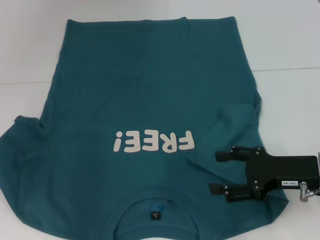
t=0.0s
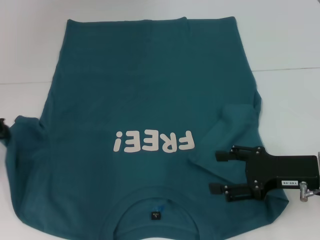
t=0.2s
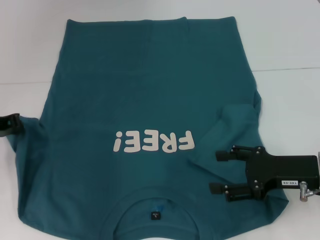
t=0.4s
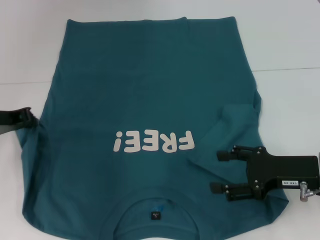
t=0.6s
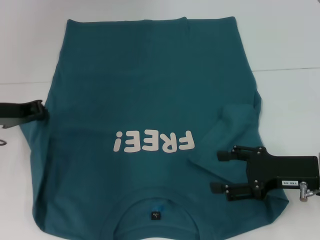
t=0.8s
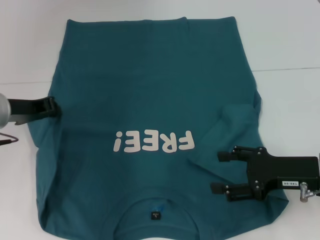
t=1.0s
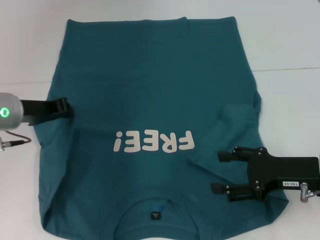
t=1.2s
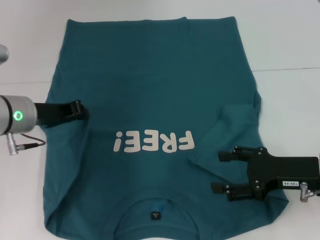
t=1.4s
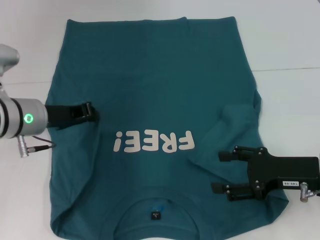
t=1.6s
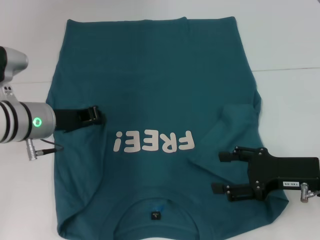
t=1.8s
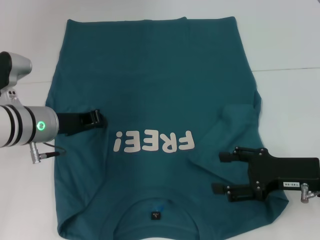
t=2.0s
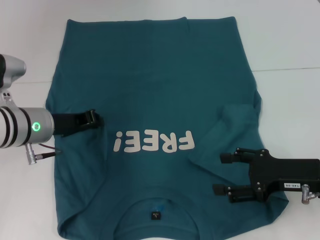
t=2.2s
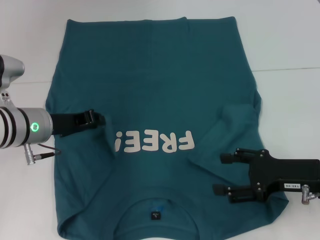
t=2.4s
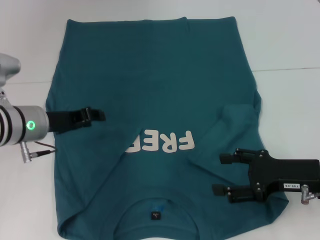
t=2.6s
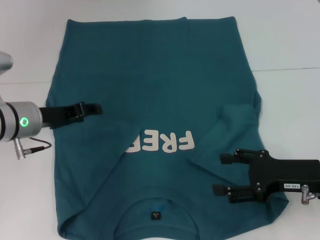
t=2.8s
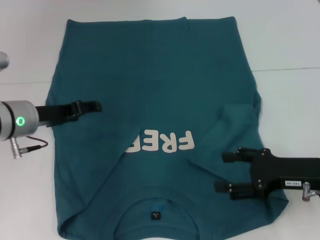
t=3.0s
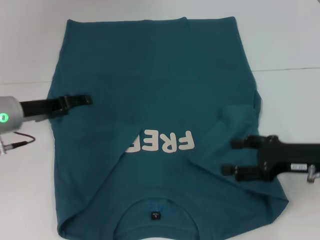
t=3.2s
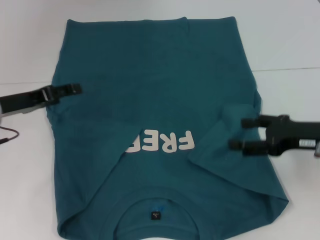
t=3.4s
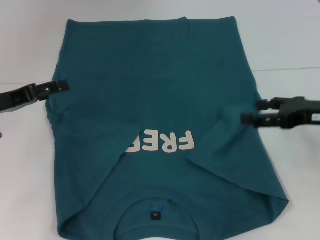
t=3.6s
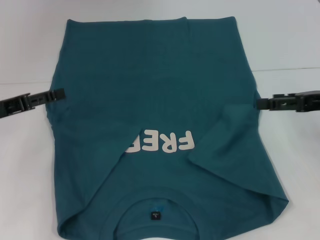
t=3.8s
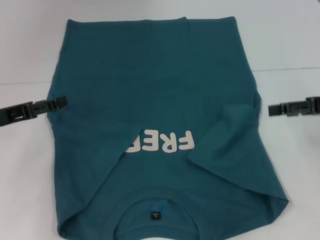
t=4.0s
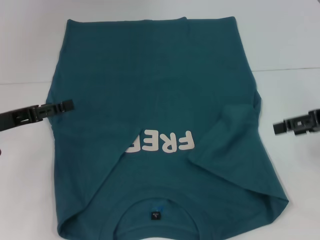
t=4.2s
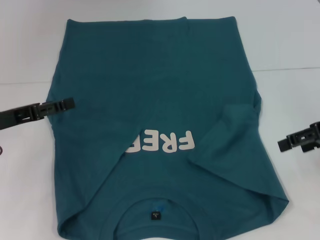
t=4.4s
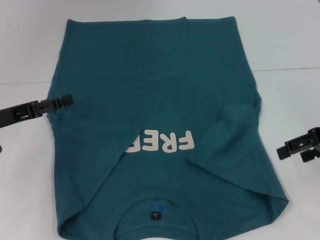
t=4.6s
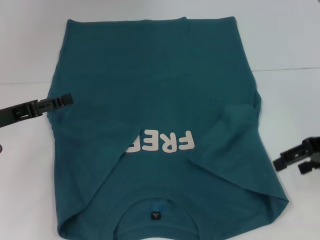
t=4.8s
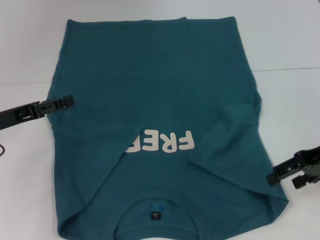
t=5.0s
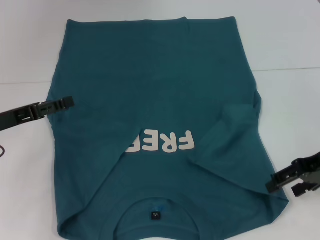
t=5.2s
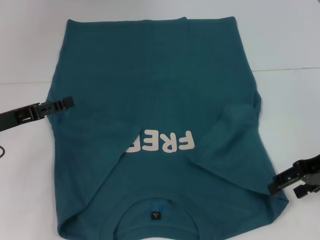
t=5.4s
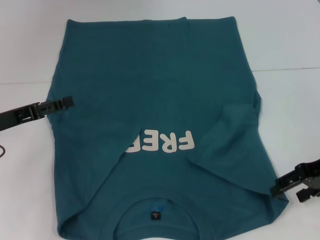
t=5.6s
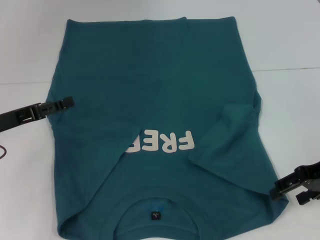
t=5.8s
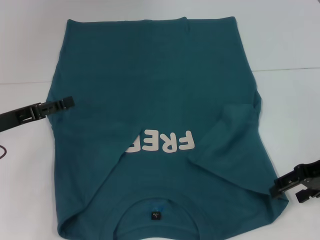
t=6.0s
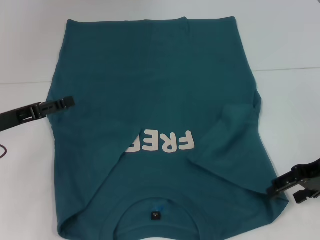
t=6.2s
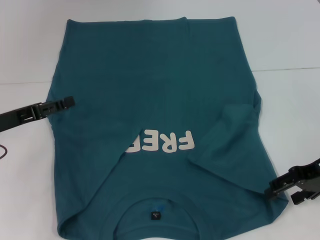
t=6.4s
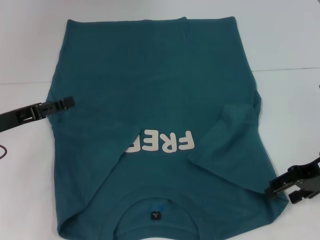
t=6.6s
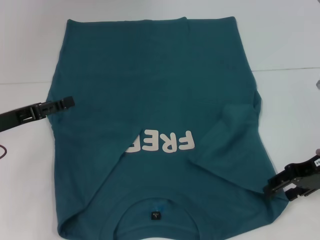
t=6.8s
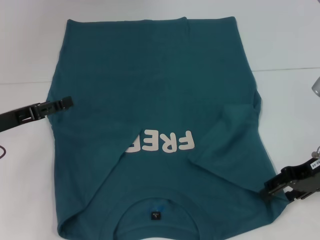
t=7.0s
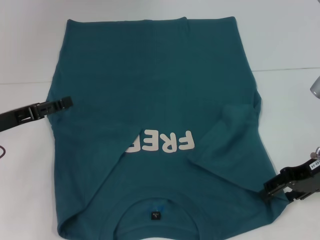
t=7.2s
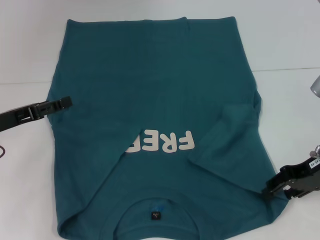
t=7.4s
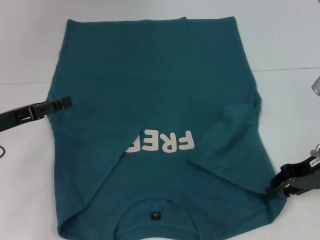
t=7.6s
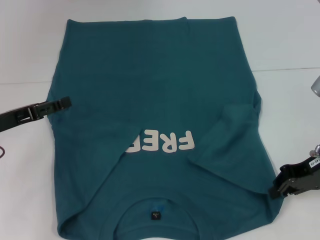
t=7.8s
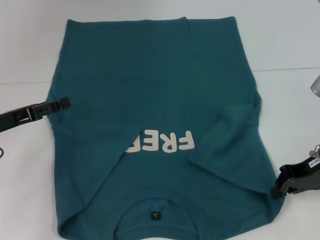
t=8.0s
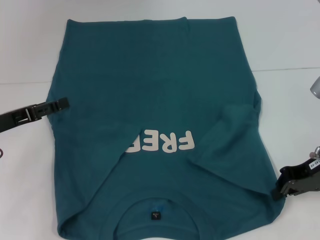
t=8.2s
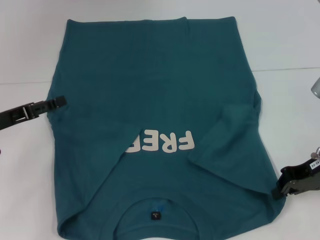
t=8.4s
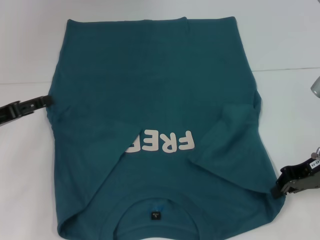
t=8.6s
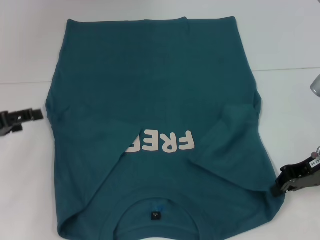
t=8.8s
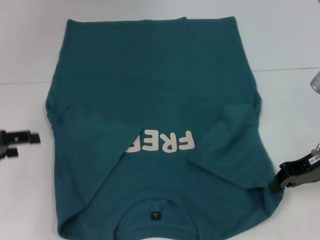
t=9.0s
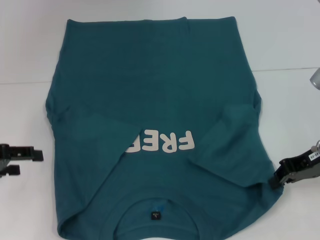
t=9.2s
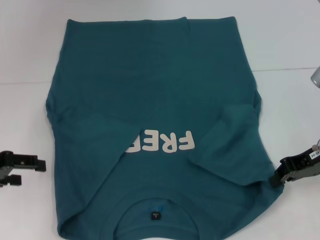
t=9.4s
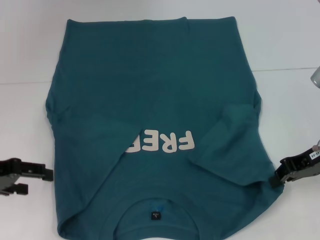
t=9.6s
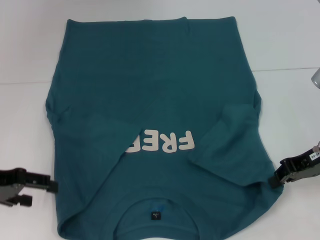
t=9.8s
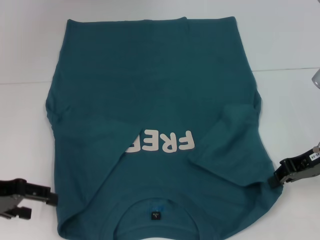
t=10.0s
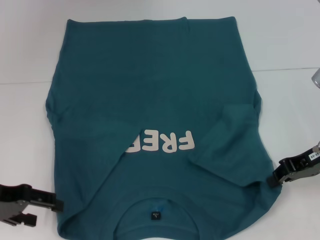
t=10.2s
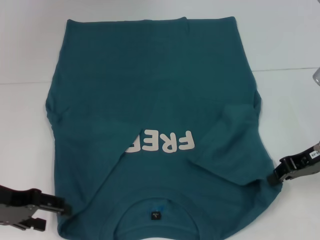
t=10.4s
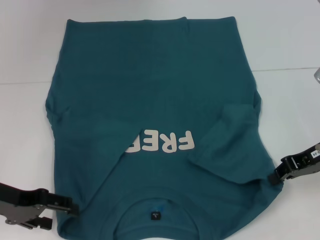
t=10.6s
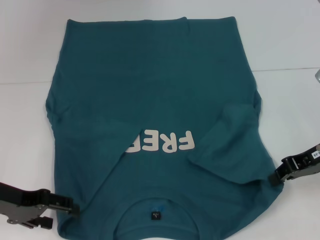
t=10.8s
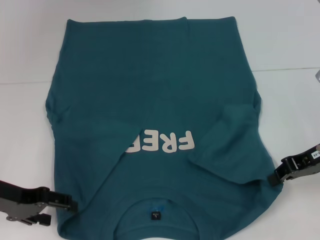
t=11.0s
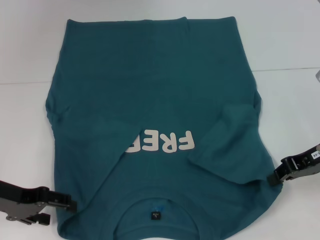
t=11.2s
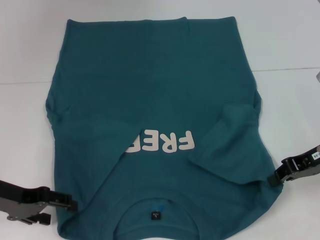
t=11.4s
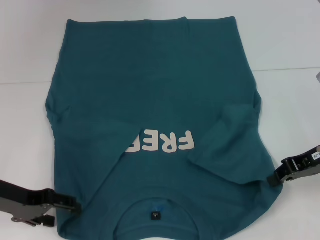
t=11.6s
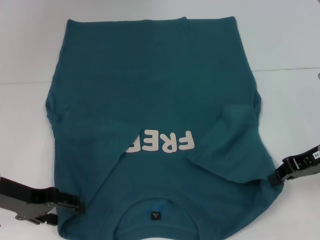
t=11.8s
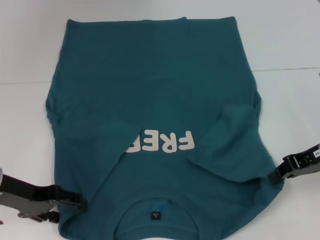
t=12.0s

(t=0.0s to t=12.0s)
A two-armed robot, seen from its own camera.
Step, t=0.0s - t=2.6s: Fold the bottom left sleeve with your left hand.
Step, t=2.8s - t=8.2s: Grab the bottom right corner with your right hand.
t=0.0s - t=1.6s: The left gripper heads to the right, covering roughly 10 cm.
t=1.6s - t=3.0s: The left gripper opens.
t=3.0s - t=4.4s: The right gripper shifts roughly 15 cm upward, to the right and forward. The left gripper goes approximately 5 cm to the left.
t=4.4s - t=6.0s: The right gripper moves approximately 5 cm.
t=6.0s - t=7.6s: The right gripper closes up.
t=7.6s - t=9.0s: The left gripper shifts by approximately 5 cm, while the right gripper closes up.
t=9.0s - t=10.4s: The left gripper changes place by about 5 cm.
t=10.4s - t=12.0s: The grippers make only small movements.

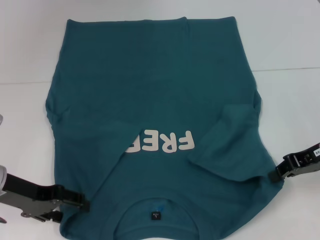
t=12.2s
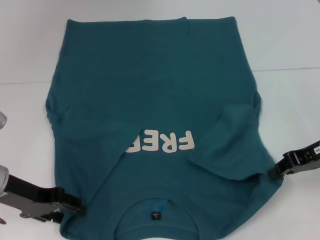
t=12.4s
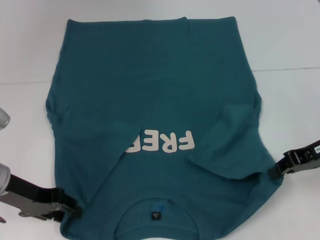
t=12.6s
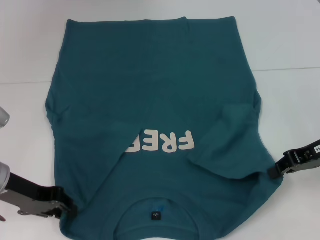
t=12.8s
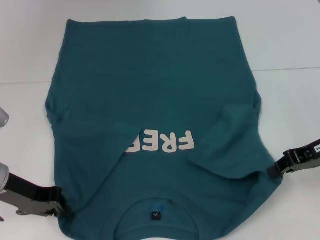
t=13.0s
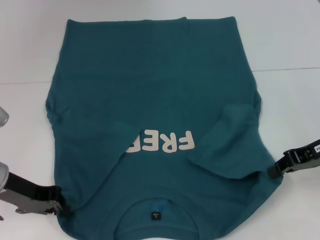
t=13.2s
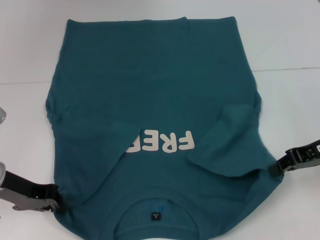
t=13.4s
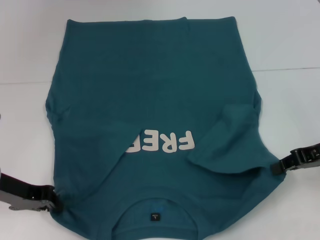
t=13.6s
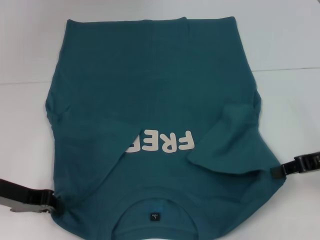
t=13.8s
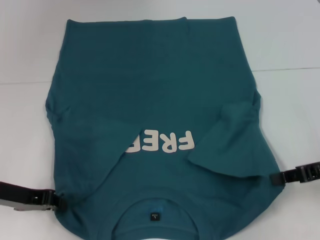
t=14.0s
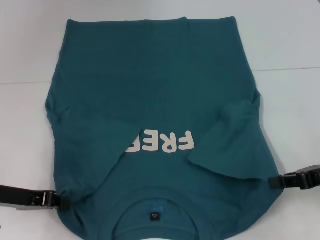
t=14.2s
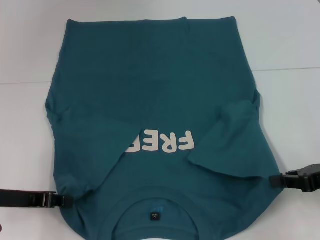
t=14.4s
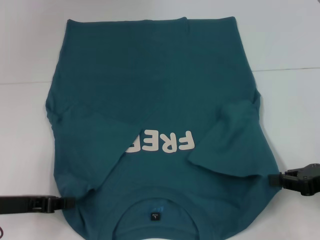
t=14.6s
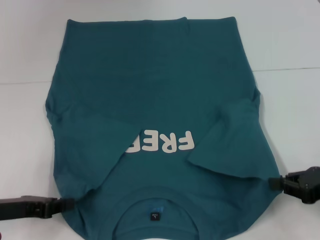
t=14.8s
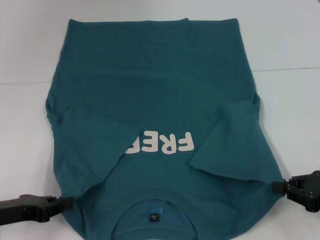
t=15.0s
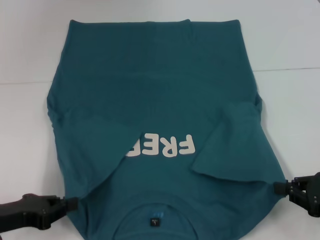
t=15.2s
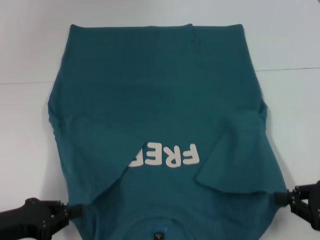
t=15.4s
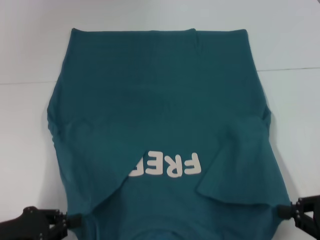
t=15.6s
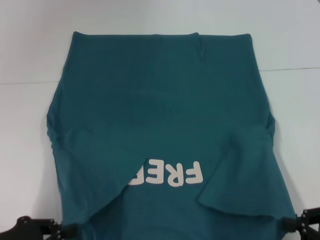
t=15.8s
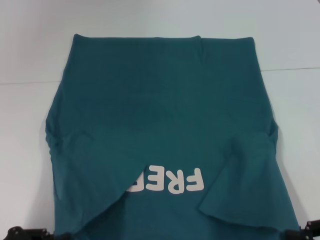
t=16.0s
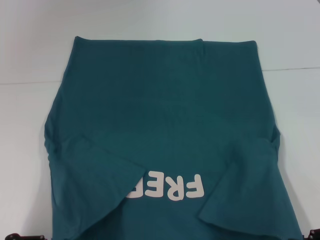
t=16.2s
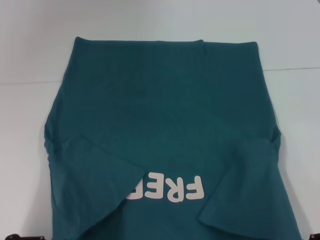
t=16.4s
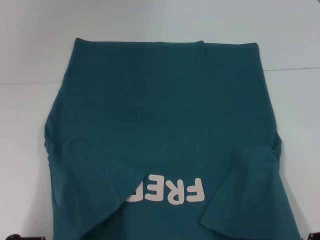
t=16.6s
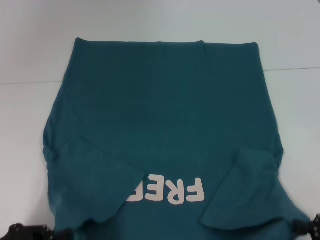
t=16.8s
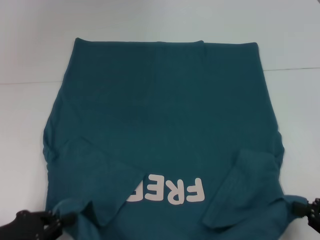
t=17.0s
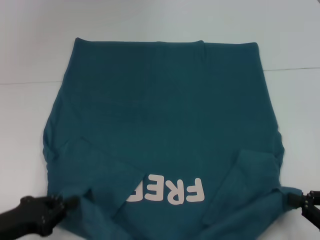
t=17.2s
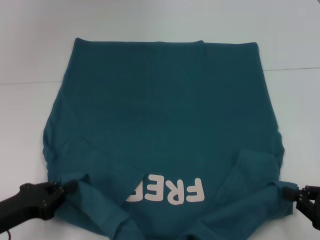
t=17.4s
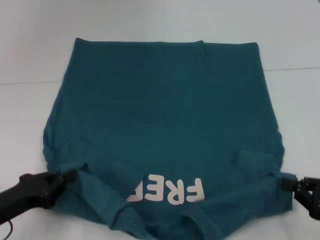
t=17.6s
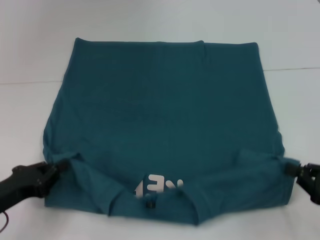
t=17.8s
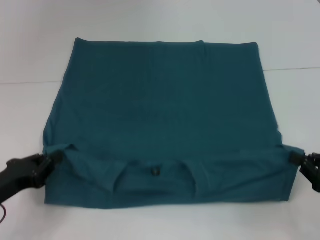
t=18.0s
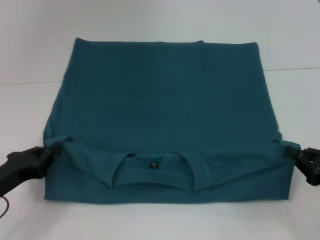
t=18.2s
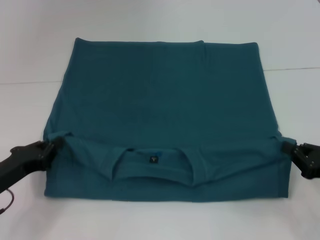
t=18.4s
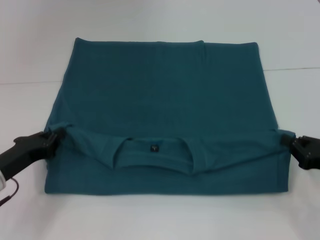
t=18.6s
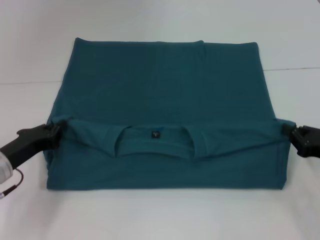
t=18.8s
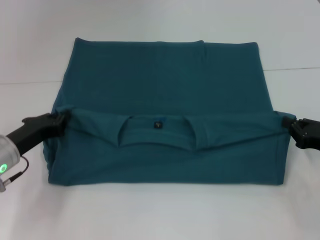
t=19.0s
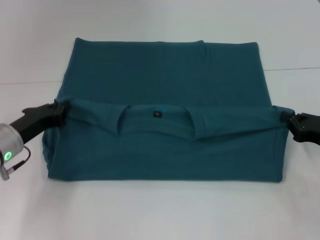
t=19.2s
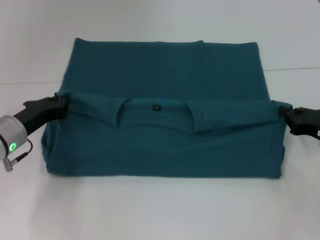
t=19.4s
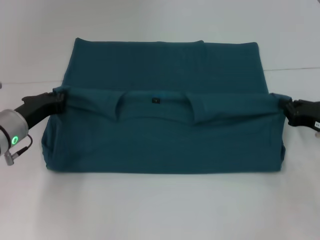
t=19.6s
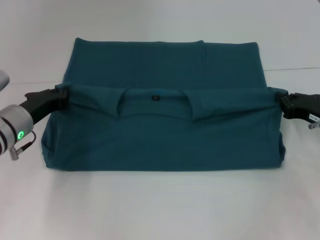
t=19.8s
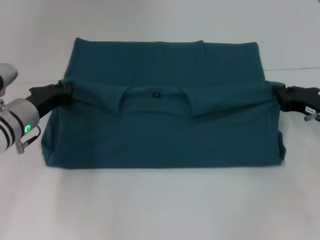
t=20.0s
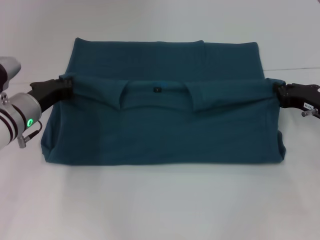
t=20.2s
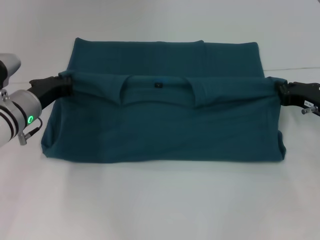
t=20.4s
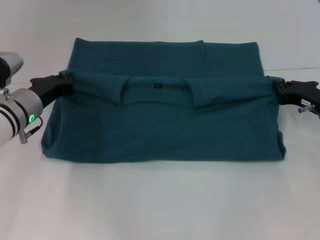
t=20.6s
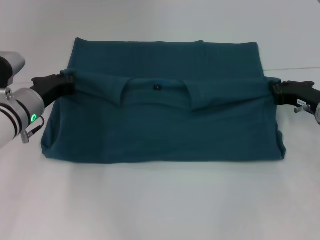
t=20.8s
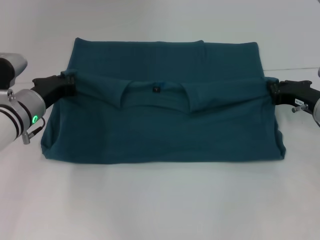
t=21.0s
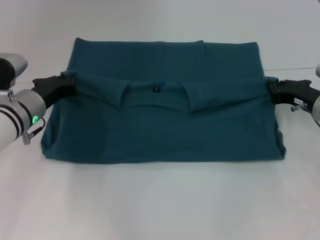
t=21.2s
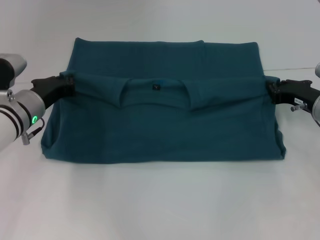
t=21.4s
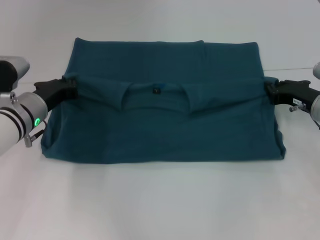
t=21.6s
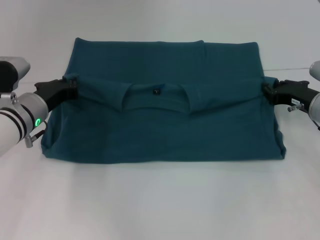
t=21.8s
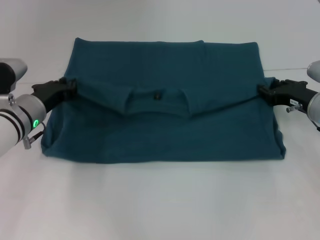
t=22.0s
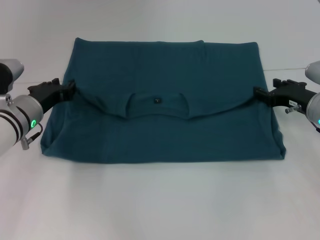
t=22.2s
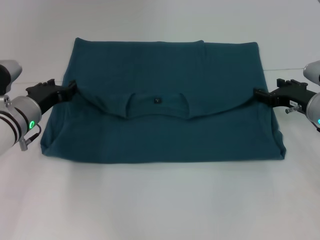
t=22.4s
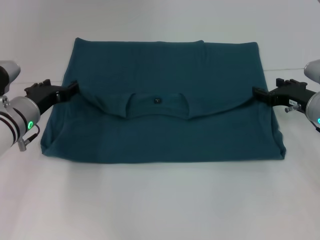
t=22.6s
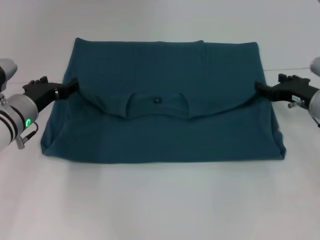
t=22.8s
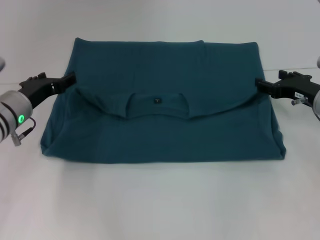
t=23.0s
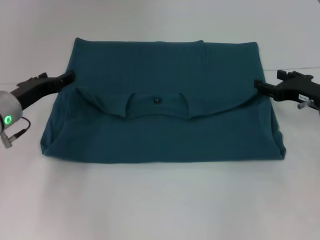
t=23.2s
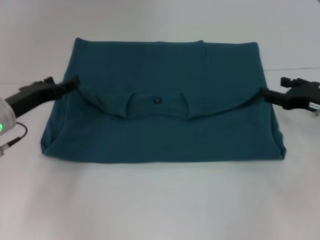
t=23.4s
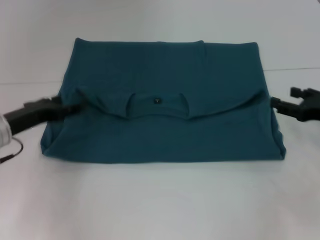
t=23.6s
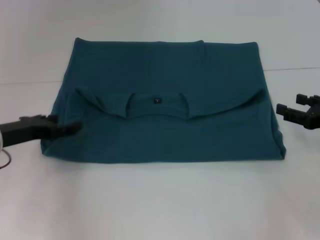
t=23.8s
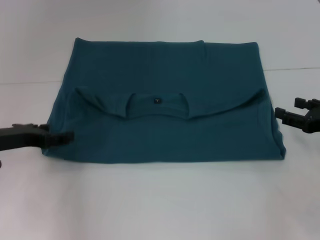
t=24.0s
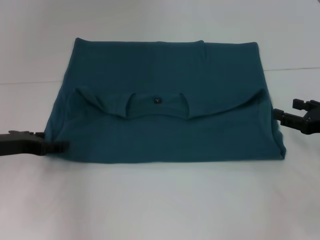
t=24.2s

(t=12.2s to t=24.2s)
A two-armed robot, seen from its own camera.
Step, t=13.6s - t=22.4s: Fold the clothes to the left.
Step, t=13.6s - t=22.4s: Fold the clothes to the right.
t=12.2s - t=13.8s: The left gripper closes its fingers.
t=13.8s - t=15.2s: The left gripper heads backward, covering roughly 5 cm. The right gripper is displaced backward and downward by roughly 10 cm.
t=15.2s - t=16.6s: Both grippers move backward, about 10 cm.
t=16.6s - t=18.2s: The grippers both shift forward by about 10 cm.
t=18.2s - t=19.8s: The left gripper travels forward and to the right by roughly 15 cm. Meanwhile the right gripper moves forward, about 10 cm.
t=19.8s - t=21.2s: The grippers make only small movements.
t=21.2s - t=22.6s: The right gripper opens. The left gripper opens up.
t=22.6s - t=24.2s: The right gripper moves backward and to the right, approximately 10 cm. The left gripper heads to the left and backward, covering approximately 10 cm, and opens up.
